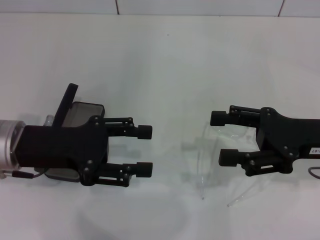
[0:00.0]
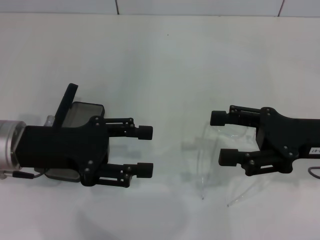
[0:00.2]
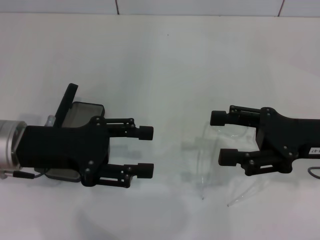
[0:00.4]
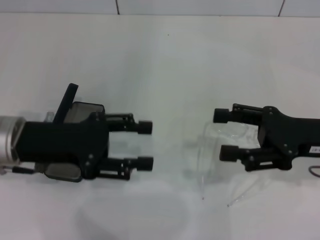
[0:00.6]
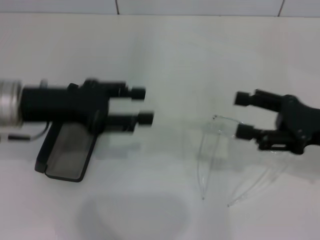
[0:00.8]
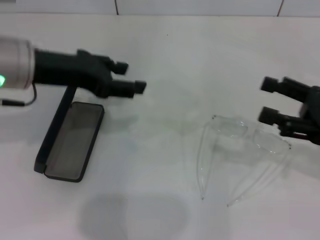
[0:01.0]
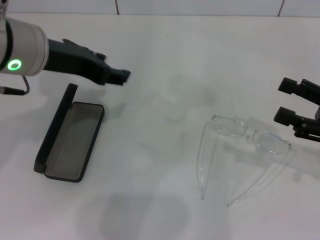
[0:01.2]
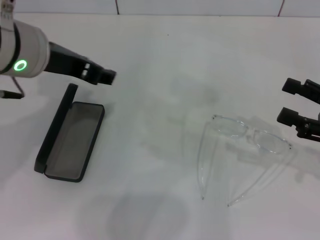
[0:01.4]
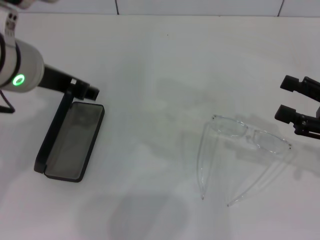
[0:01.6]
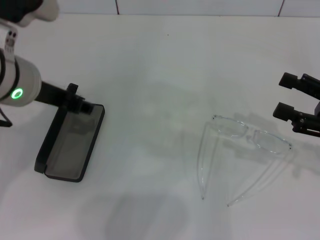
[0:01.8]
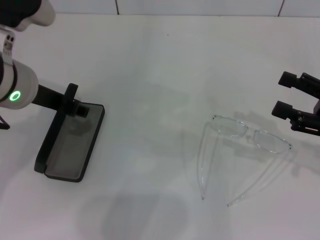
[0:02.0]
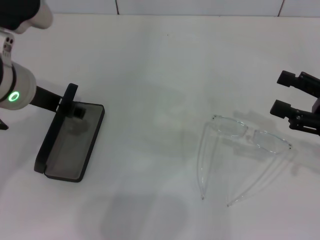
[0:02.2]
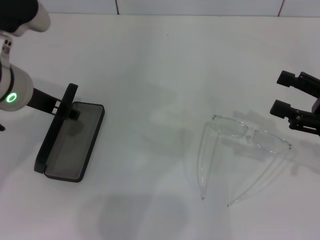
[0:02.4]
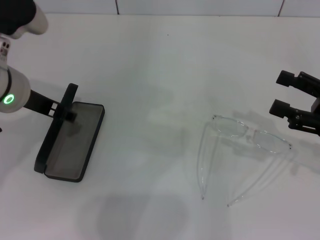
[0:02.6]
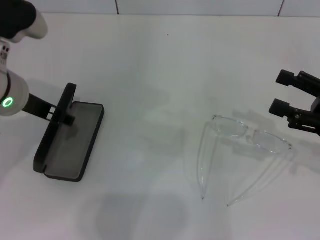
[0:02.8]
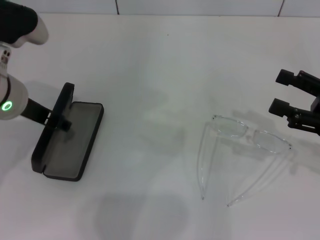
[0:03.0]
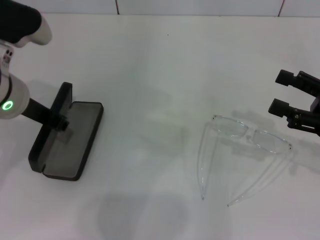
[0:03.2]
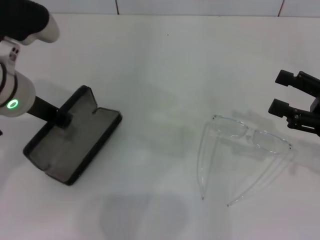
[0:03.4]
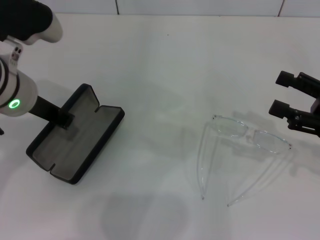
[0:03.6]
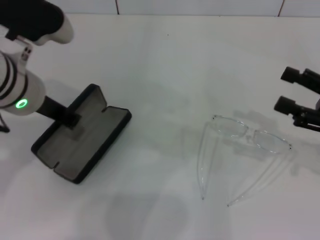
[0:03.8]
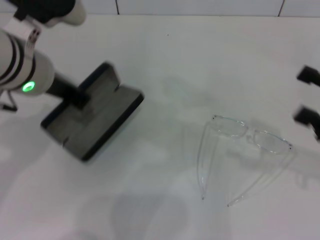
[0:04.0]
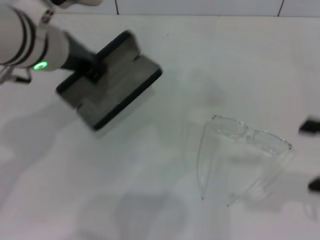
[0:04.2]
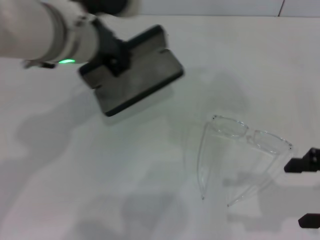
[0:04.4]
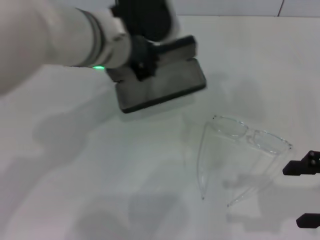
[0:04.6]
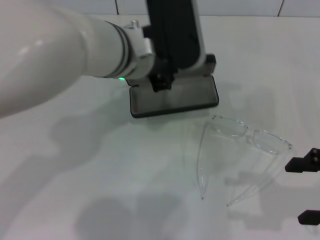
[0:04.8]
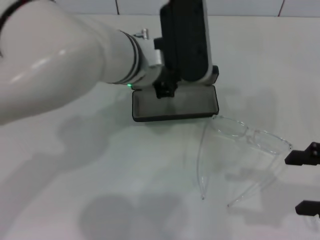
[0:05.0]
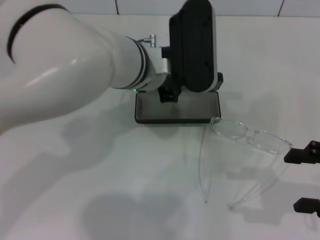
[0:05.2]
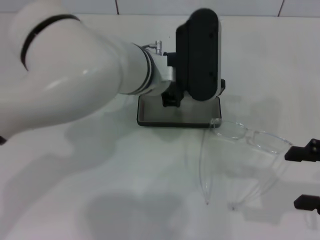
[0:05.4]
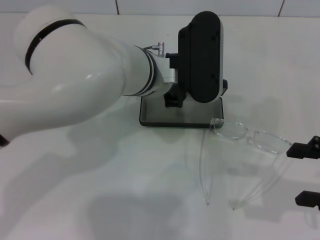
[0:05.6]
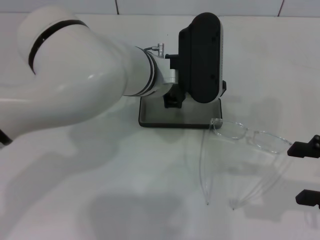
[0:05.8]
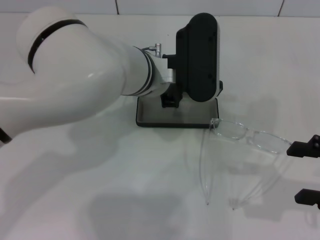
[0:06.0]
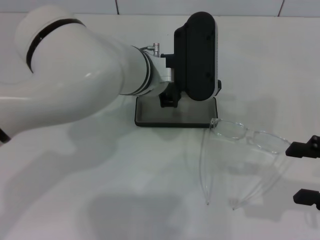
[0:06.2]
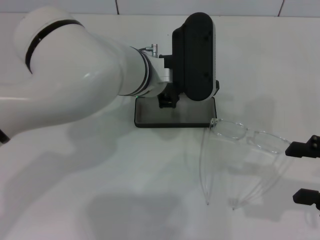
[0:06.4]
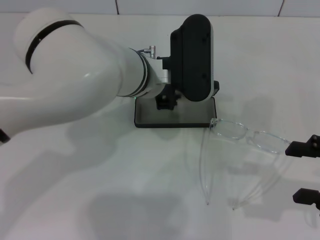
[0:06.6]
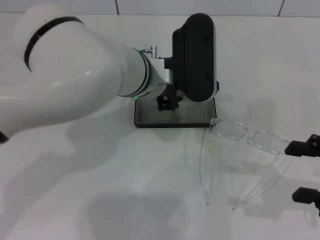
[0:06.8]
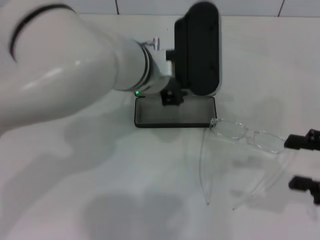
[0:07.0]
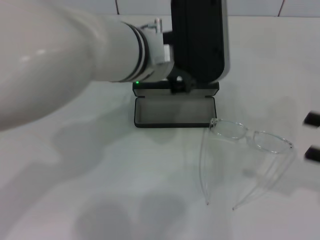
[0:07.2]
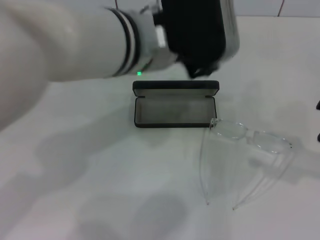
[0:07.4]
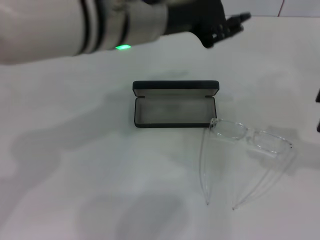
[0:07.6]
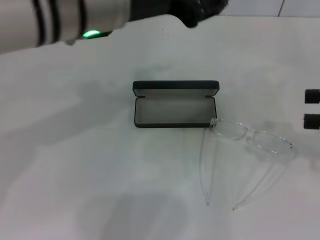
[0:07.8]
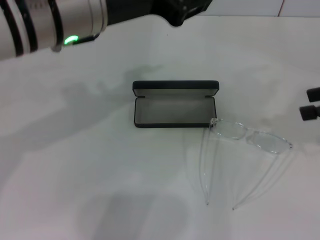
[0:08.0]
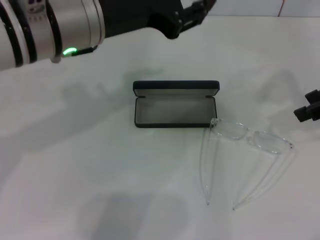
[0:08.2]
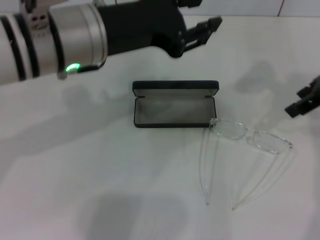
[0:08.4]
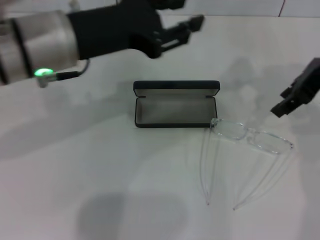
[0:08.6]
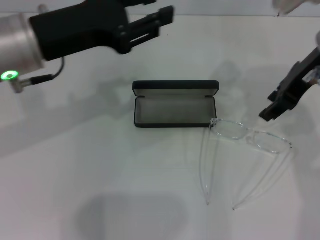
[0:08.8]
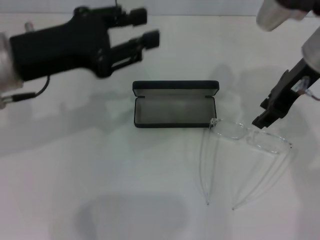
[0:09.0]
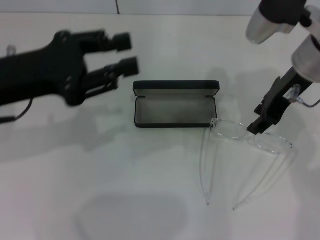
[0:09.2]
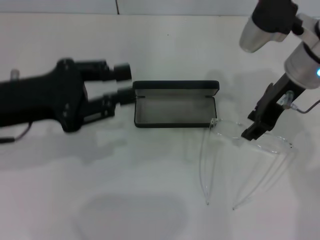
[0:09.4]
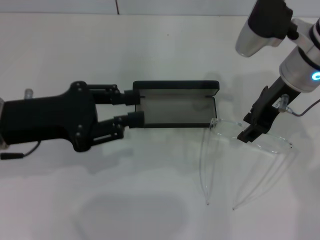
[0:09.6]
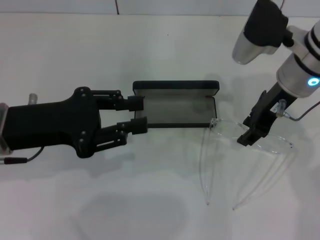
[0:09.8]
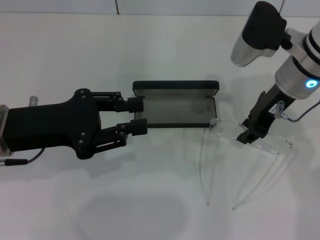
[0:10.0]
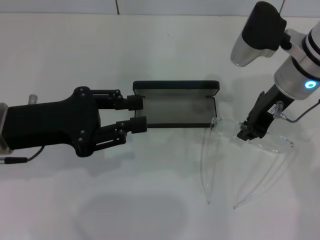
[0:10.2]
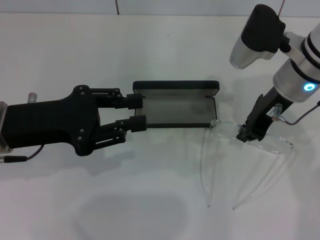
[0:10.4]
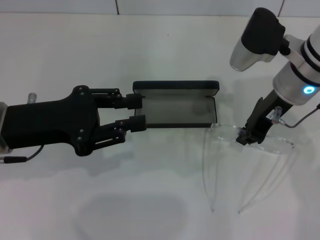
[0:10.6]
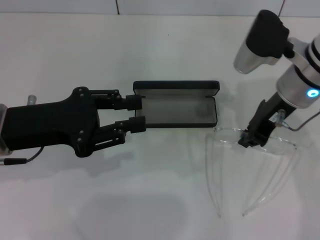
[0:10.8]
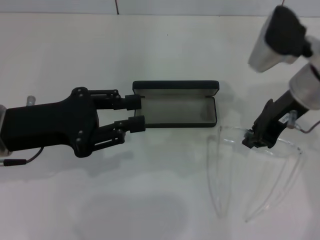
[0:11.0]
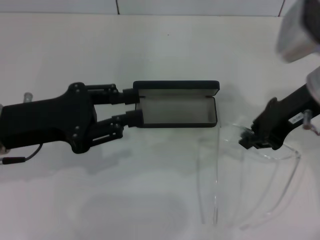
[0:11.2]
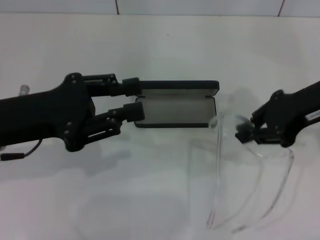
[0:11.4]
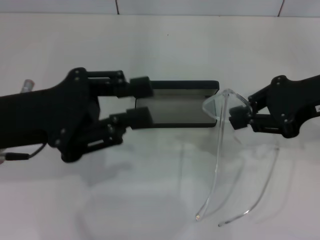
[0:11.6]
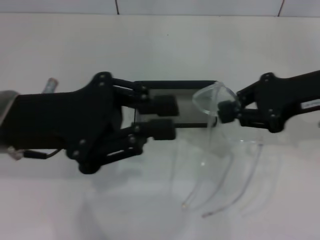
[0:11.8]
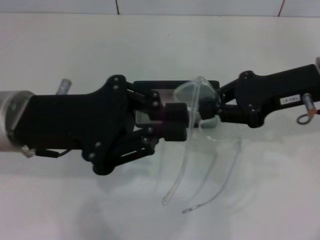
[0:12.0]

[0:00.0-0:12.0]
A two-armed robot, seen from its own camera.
Step, 0:00.0 to 0:03.6: Grab the glasses case with your left hand.
Step, 0:03.8 to 0:07.0: Place the glasses case in the center of the table with your left hand.
Step, 0:07.2 to 0:10.4: Grab the eyeglass frame with your right hand.
0:00.0 to 0:01.6: The left gripper travels upward and to the right by approximately 10 cm. Meanwhile the right gripper travels to the right by some 5 cm.
0:01.6 to 0:03.0: The left gripper moves downward, approximately 5 cm.
0:03.0 to 0:04.4: The left gripper travels to the right by some 10 cm, and closes up; the right gripper goes some 5 cm backward.
0:04.4 to 0:06.0: The left gripper goes approximately 10 cm to the right and downward.
0:06.0 to 0:07.6: The right gripper ends up approximately 5 cm from where it was, while the left gripper moves upward, about 10 cm.
0:07.6 to 0:09.0: The left gripper heads to the left and downward, covering roughly 15 cm; the right gripper moves to the left and forward, about 20 cm.
0:09.0 to 0:10.4: The two grippers go about 5 cm downward.
0:10.4 to 0:12.0: The right gripper shifts approximately 5 cm to the right. The left gripper changes place by some 5 cm, and closes up.

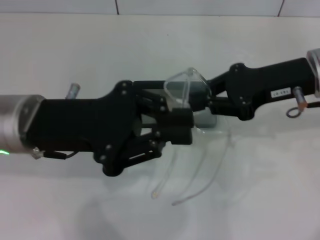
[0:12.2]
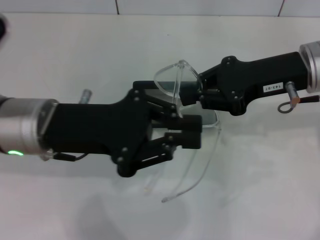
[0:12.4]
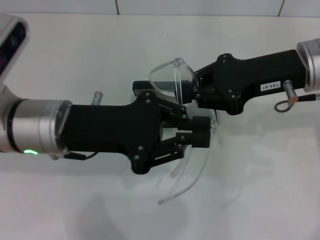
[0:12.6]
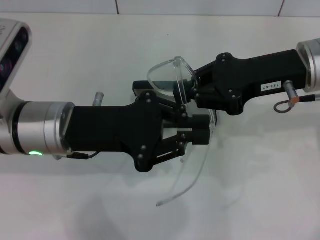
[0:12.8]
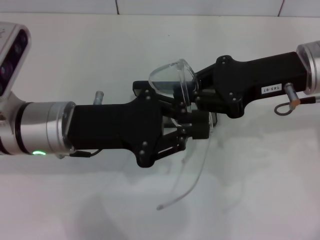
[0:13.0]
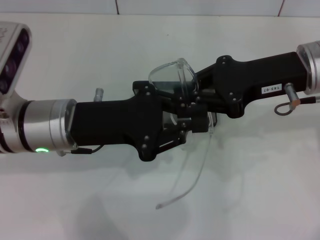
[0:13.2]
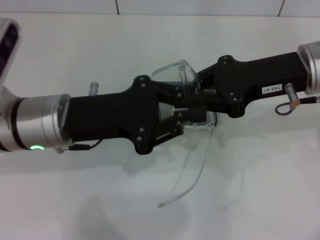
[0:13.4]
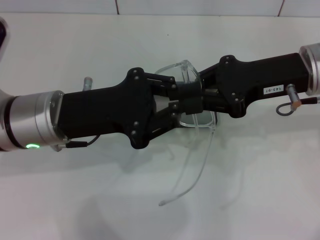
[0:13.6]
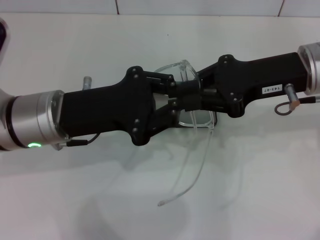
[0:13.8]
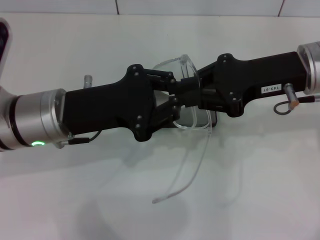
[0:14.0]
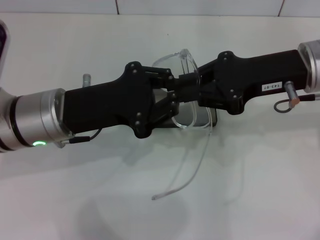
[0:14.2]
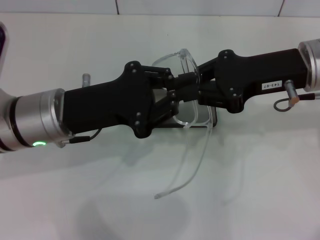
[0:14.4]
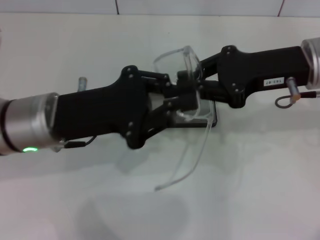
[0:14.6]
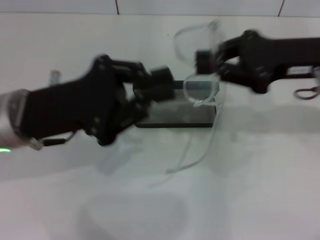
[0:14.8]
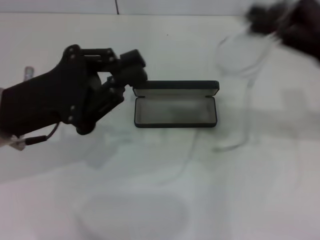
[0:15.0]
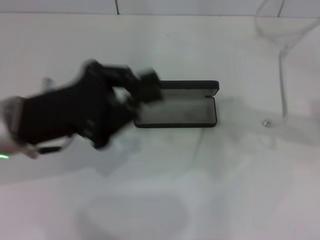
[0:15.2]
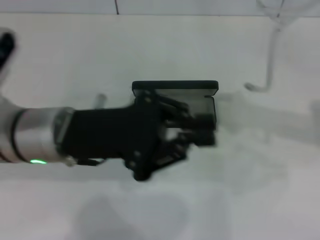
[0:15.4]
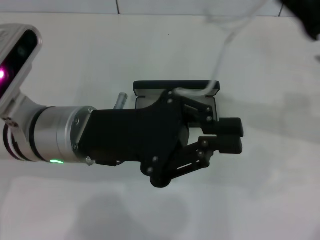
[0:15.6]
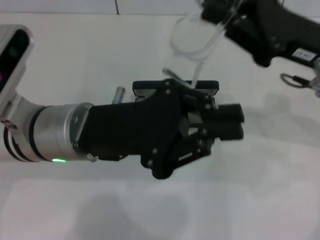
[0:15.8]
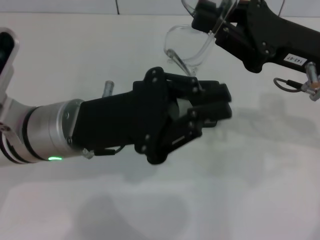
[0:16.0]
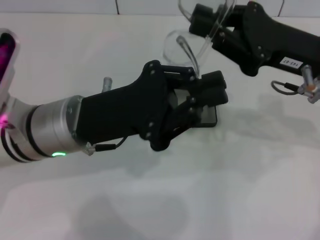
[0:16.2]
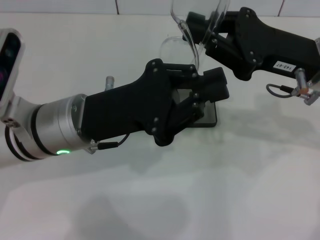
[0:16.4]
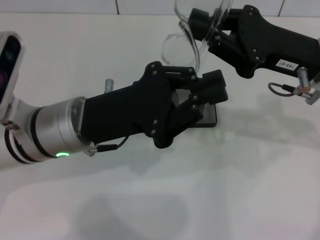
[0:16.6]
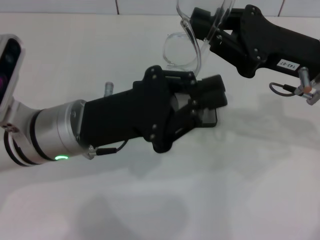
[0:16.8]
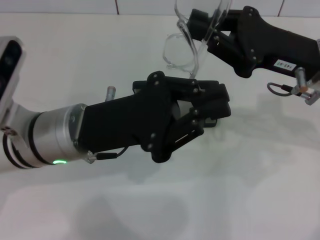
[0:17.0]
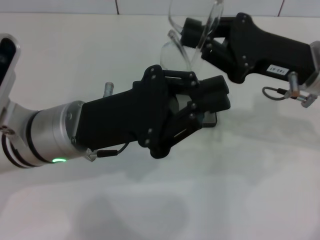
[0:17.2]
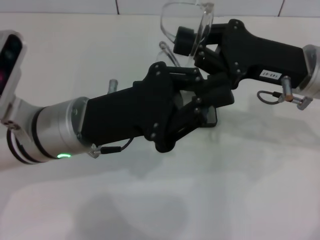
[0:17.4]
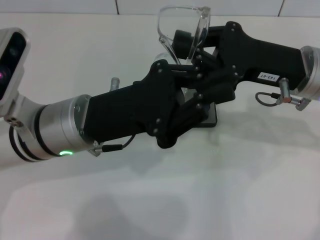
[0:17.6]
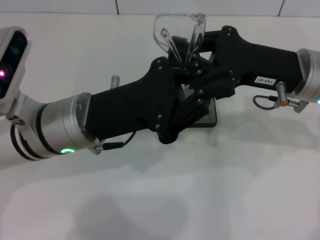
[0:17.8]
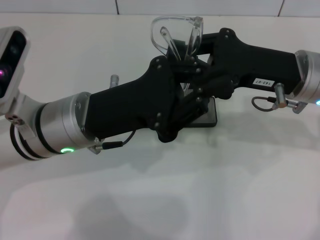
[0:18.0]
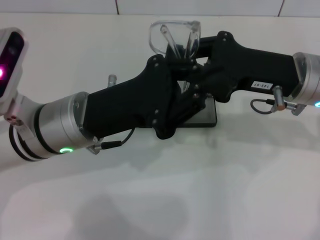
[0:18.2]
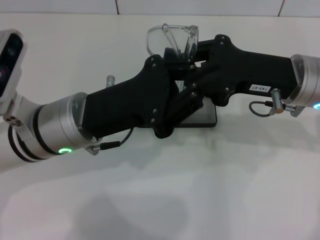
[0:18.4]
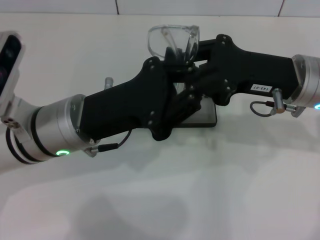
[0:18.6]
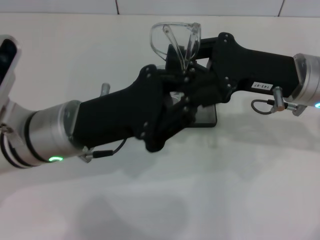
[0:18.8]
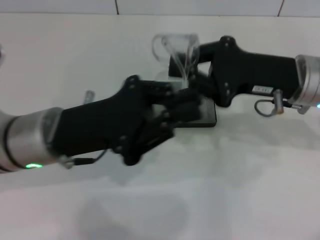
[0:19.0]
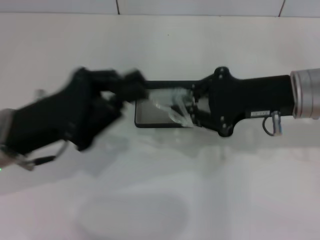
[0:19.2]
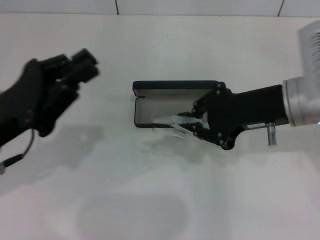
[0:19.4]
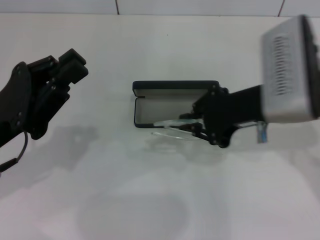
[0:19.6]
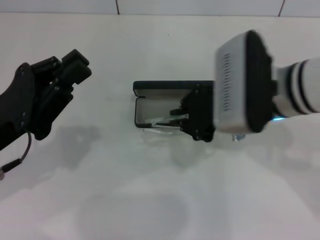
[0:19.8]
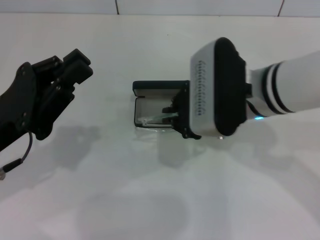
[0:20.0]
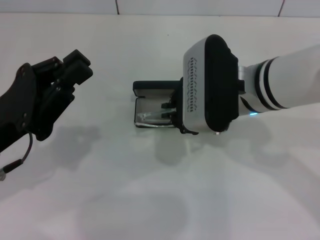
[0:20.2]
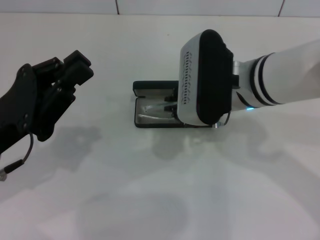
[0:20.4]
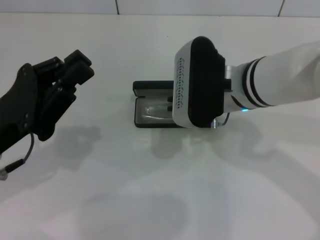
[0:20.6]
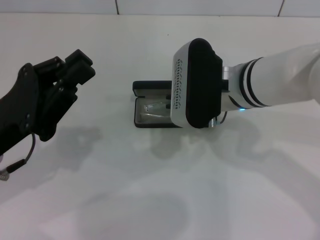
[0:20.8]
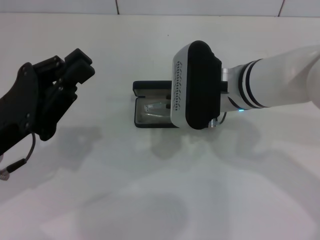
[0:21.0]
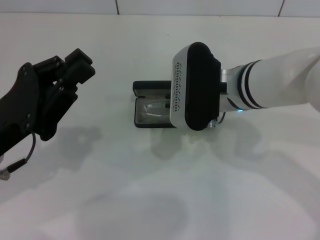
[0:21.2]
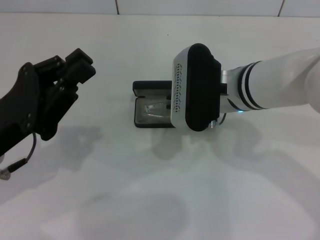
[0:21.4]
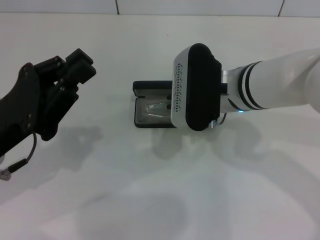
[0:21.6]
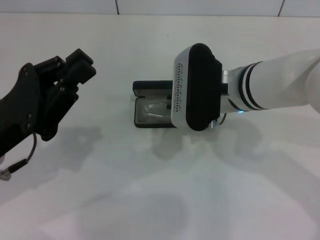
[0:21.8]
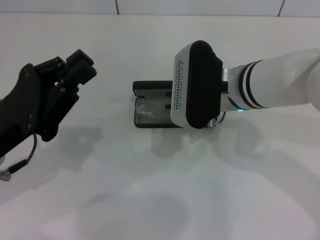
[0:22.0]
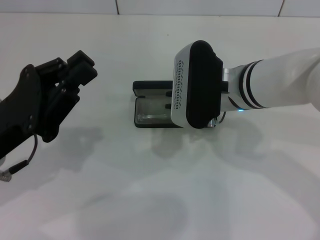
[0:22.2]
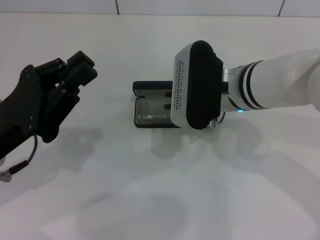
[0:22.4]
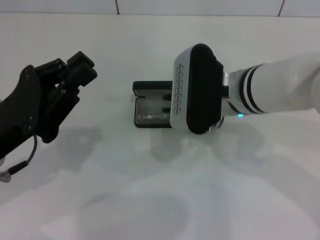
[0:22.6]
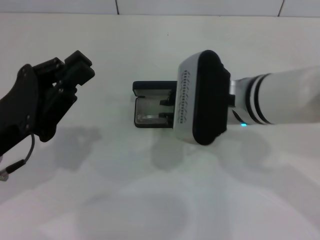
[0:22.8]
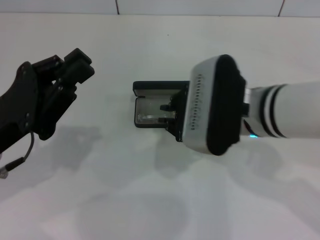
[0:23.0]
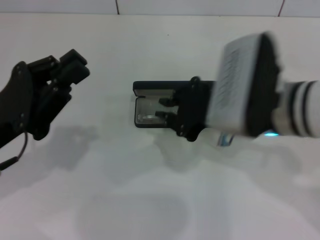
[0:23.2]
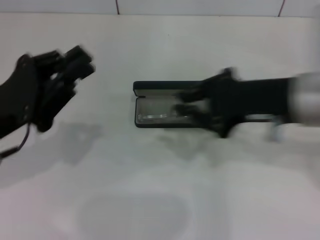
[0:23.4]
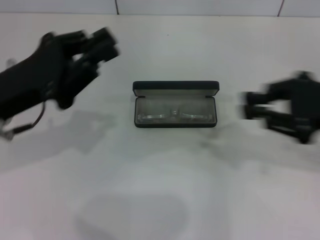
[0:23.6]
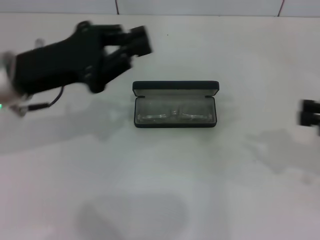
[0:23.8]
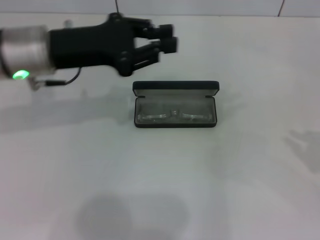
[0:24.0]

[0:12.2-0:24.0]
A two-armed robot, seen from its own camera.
Step, 0:12.2 to 0:18.4: Fold the frame with your left hand.
Step, 0:18.8 to 0:22.2: Put the glasses into the case with your right hand.
0:12.2 to 0:13.6: There are only small adjustments of the grippers.
0:13.6 to 0:15.2: The right gripper travels to the right by some 10 cm.
0:15.2 to 0:16.6: The left gripper travels to the right by some 5 cm; the right gripper shifts some 10 cm to the left and downward.
0:16.6 to 0:18.2: The grippers move only a little.
0:18.2 to 0:19.6: The left gripper goes some 10 cm to the left.
0:19.6 to 0:21.0: The right gripper moves to the left, some 5 cm.
0:21.0 to 0:22.6: The two grippers keep their place.
0:22.6 to 0:24.0: The left gripper shifts roughly 15 cm forward and upward. The right gripper moves to the right, some 30 cm.
